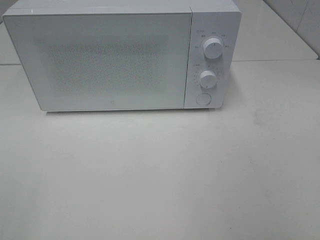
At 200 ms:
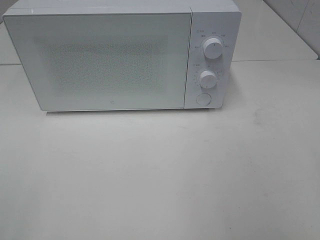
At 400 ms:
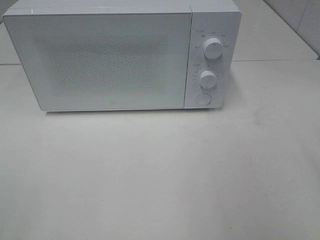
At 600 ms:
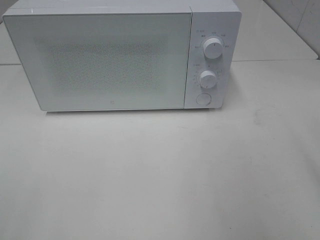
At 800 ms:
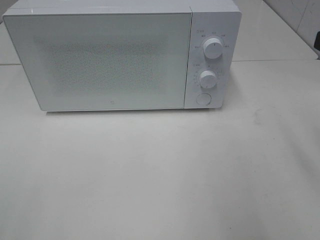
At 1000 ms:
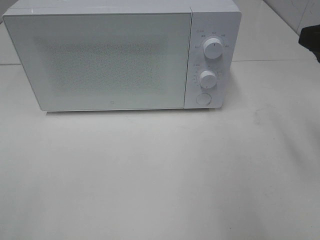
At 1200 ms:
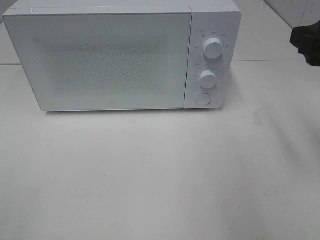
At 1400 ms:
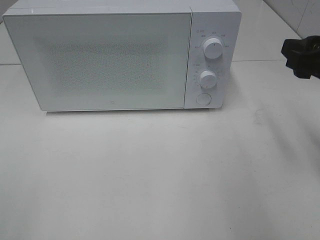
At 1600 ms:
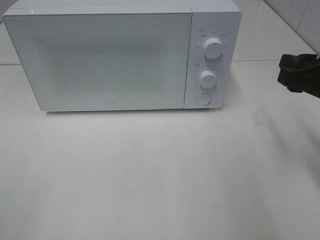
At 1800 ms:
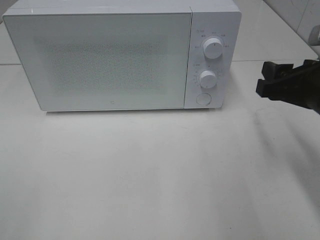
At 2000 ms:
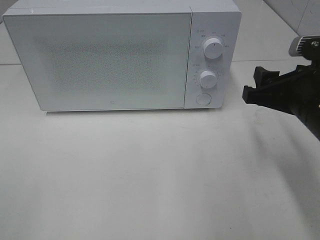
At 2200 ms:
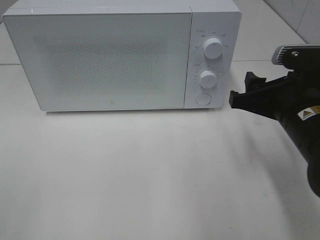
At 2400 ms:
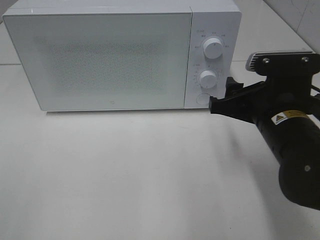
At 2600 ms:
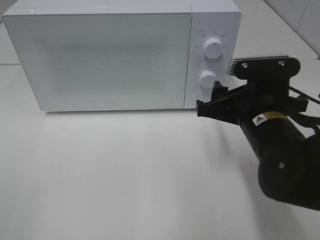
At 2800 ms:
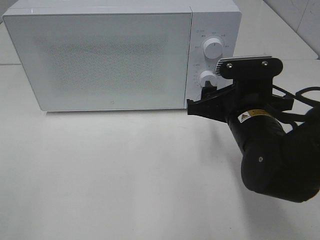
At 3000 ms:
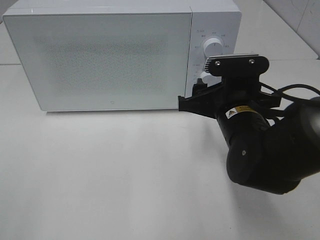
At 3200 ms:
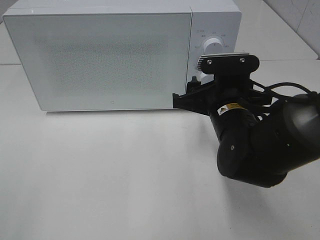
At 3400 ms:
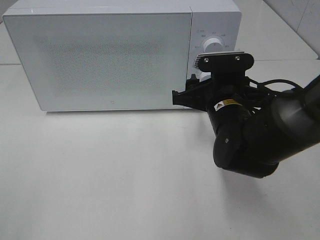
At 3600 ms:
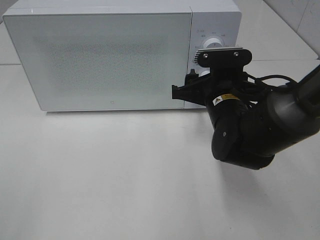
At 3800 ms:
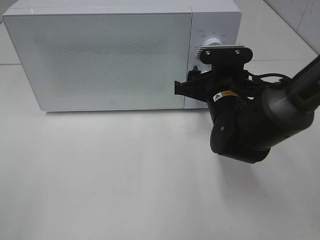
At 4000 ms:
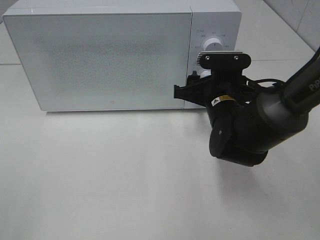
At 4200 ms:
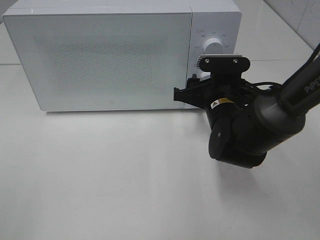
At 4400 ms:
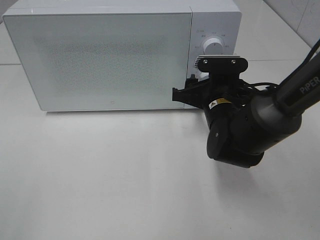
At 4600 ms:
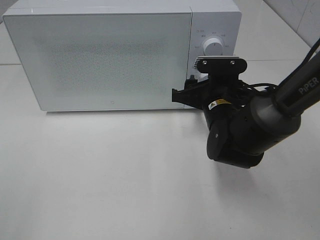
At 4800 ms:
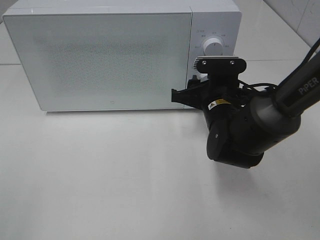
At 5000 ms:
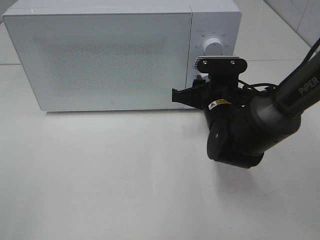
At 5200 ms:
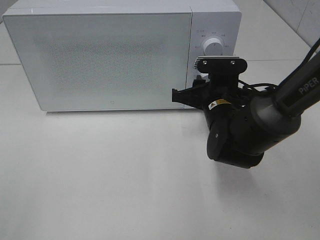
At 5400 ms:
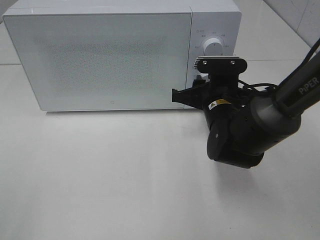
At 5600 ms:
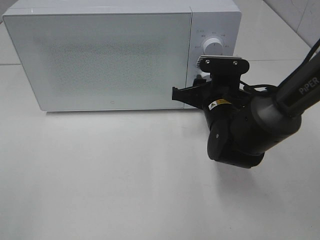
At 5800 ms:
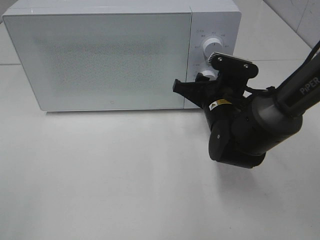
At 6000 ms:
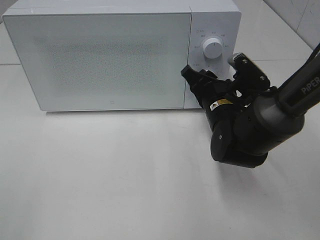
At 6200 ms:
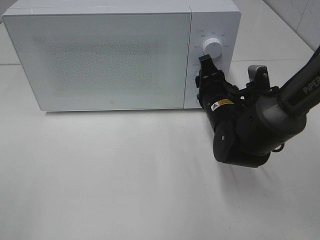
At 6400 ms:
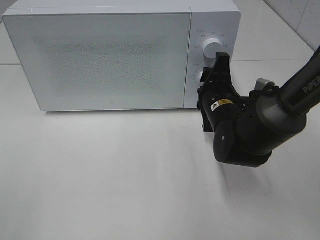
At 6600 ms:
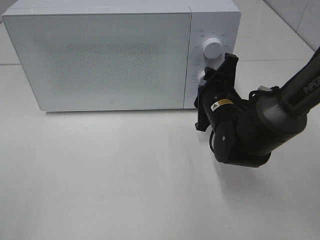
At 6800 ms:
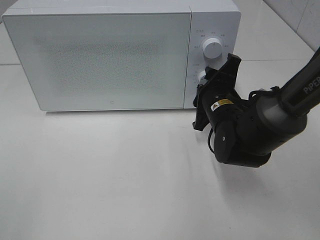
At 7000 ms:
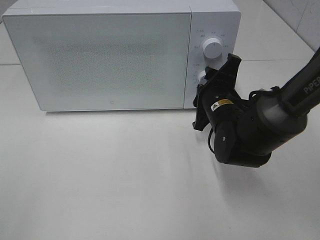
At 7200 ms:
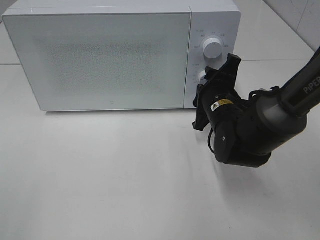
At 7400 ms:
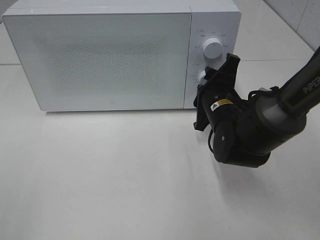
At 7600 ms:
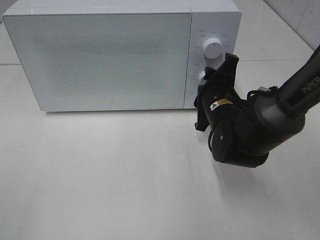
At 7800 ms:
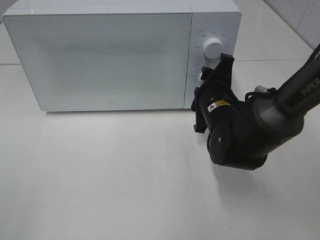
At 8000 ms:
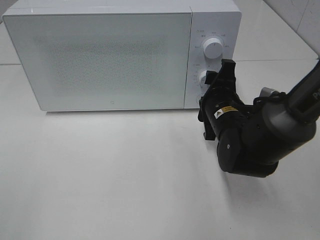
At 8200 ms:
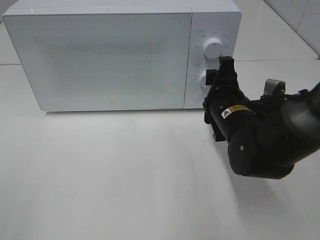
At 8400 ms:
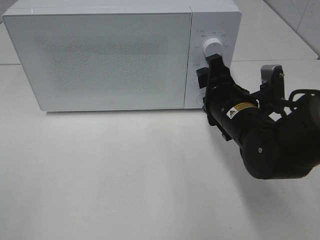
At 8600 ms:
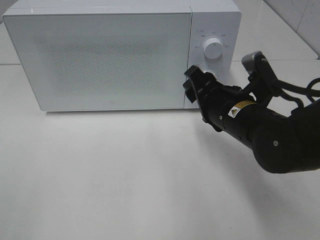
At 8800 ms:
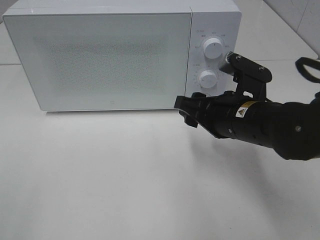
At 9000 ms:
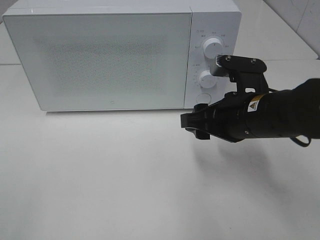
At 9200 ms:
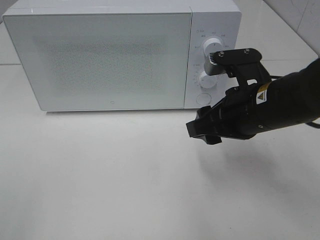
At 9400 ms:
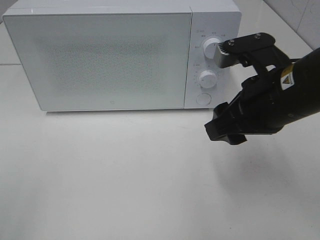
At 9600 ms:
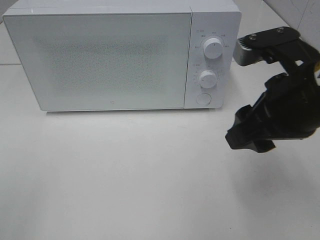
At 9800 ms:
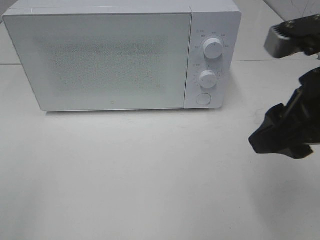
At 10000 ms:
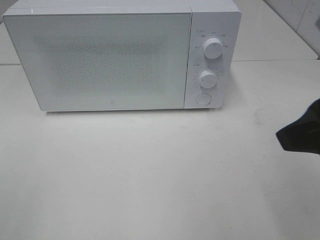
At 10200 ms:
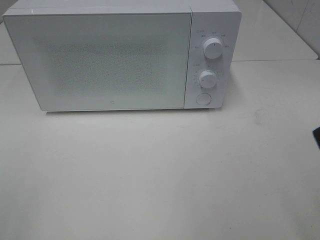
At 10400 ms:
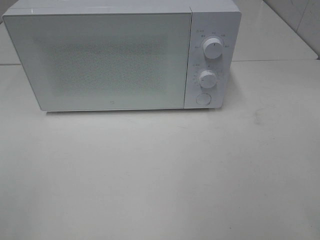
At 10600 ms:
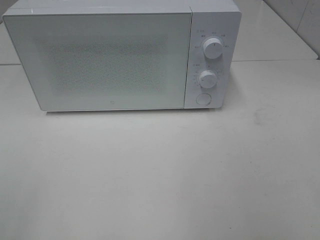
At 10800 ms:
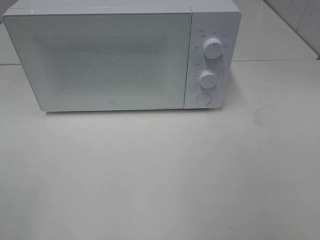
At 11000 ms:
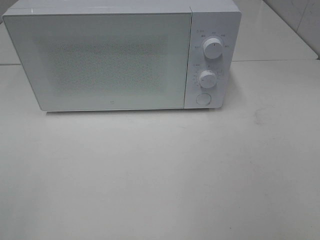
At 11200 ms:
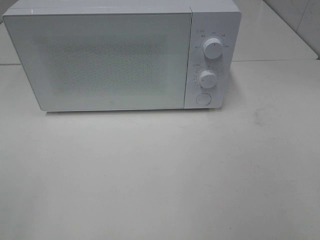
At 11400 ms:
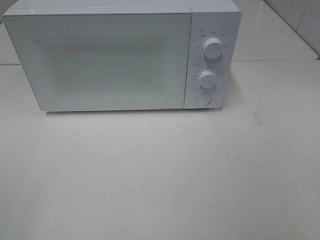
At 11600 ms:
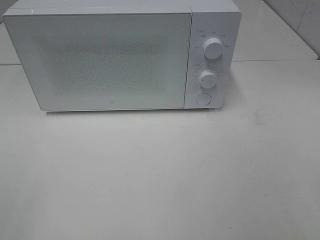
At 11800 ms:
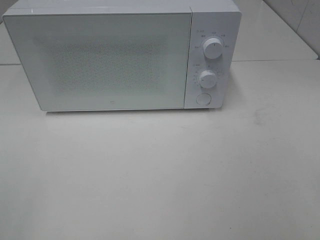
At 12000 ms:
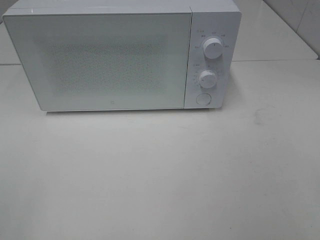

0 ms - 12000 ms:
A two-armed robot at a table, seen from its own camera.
Task of the whole recording: Heat the burger.
Step, 0 ms - 8000 ms: Right hand: twist timer button.
0 ms - 1600 ms: The right gripper shifts approximately 20 cm forward and downward.
1600 ms - 3000 ms: The right gripper shifts roughly 15 cm to the left and downward.
3000 ms - 4400 ms: The right gripper travels forward by about 5 cm.
7600 ms - 9000 ms: The right gripper heads backward and upward, covering approximately 10 cm.
9000 ms - 10400 ms: The right gripper travels backward, upward and to the right by approximately 25 cm.

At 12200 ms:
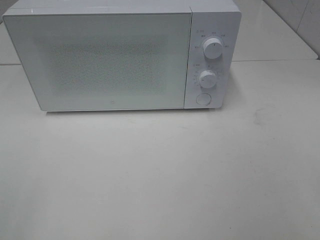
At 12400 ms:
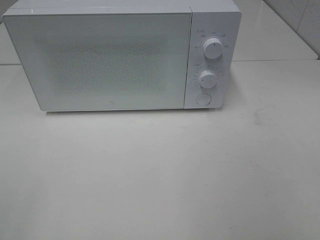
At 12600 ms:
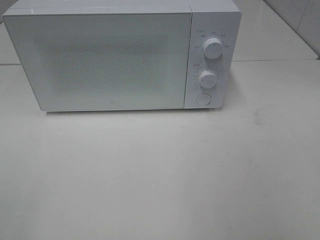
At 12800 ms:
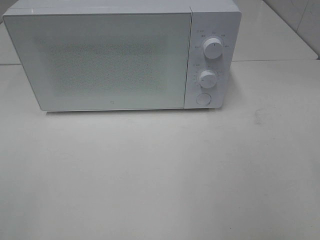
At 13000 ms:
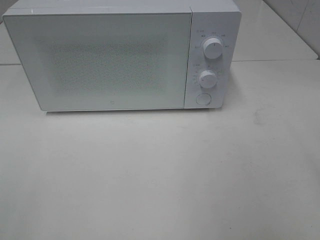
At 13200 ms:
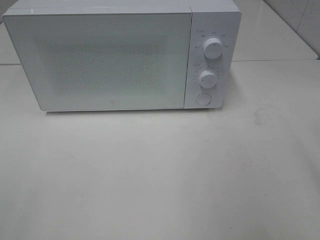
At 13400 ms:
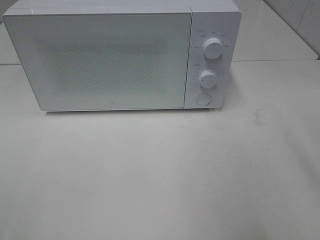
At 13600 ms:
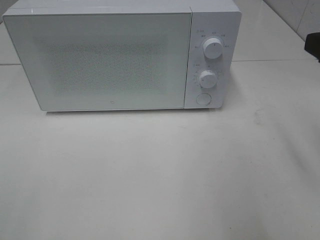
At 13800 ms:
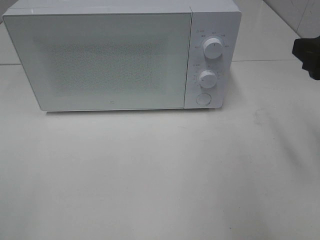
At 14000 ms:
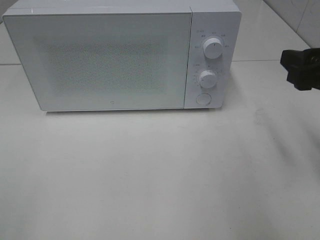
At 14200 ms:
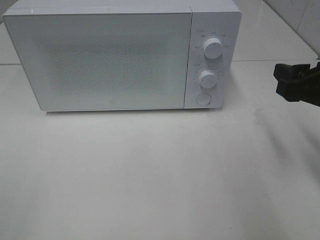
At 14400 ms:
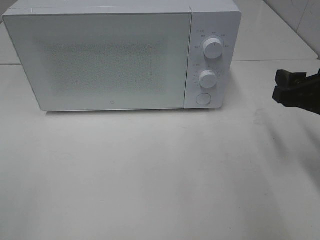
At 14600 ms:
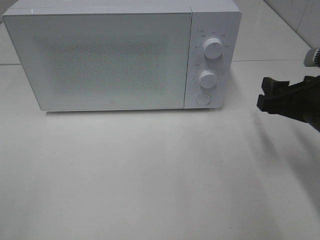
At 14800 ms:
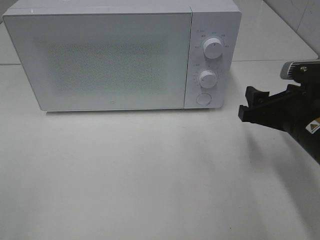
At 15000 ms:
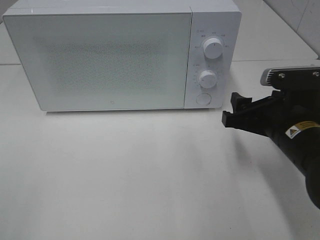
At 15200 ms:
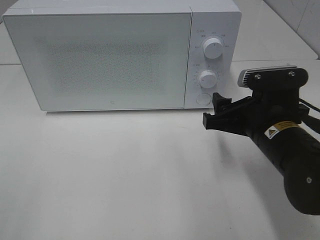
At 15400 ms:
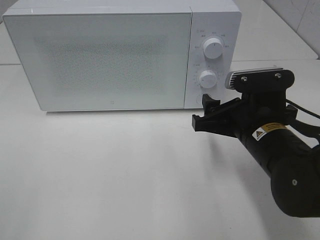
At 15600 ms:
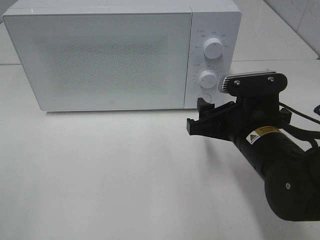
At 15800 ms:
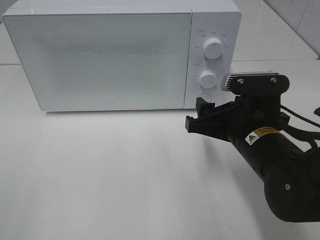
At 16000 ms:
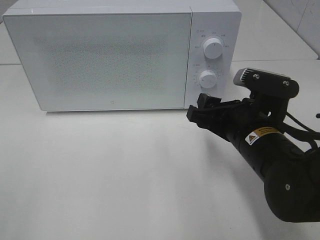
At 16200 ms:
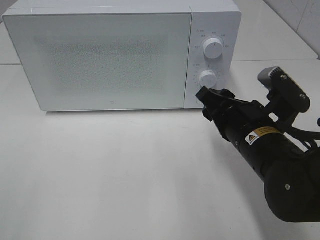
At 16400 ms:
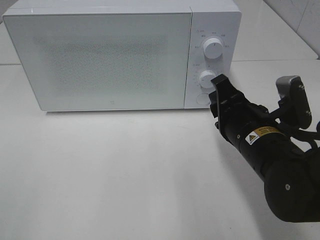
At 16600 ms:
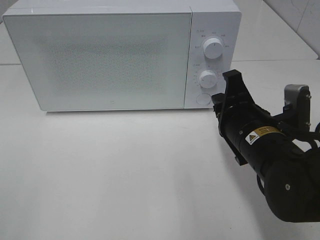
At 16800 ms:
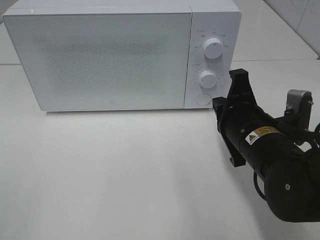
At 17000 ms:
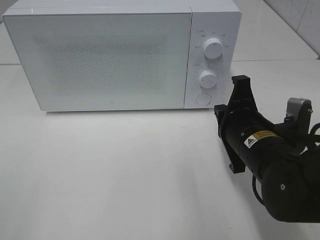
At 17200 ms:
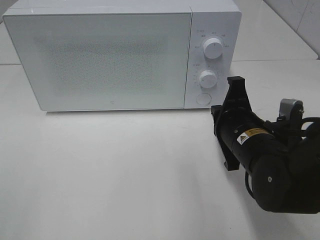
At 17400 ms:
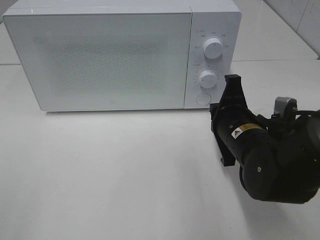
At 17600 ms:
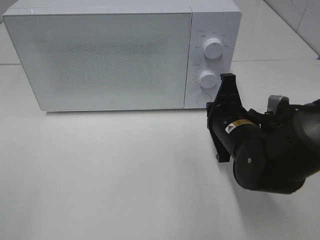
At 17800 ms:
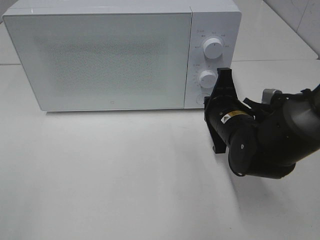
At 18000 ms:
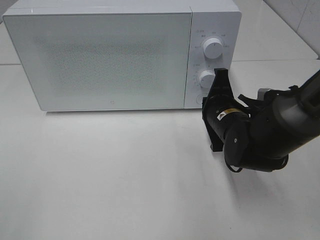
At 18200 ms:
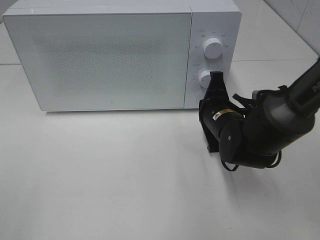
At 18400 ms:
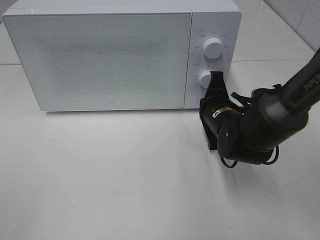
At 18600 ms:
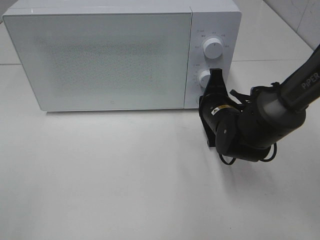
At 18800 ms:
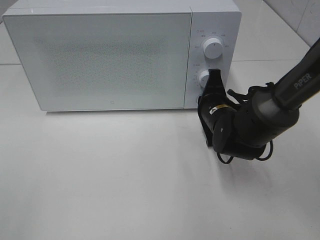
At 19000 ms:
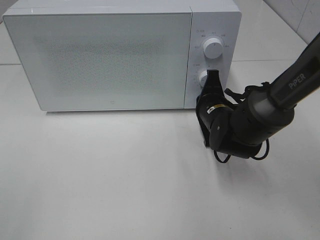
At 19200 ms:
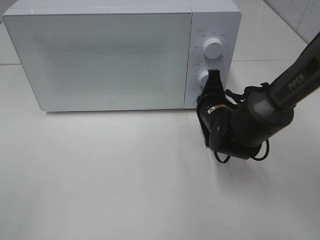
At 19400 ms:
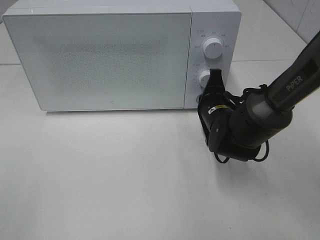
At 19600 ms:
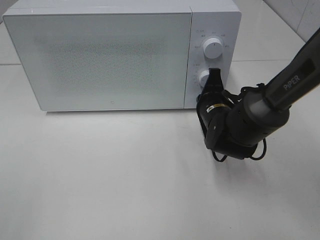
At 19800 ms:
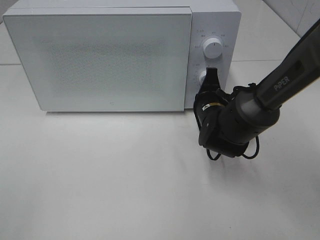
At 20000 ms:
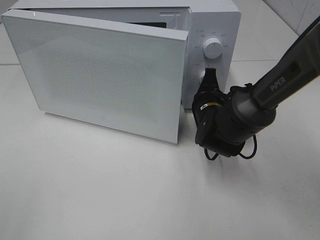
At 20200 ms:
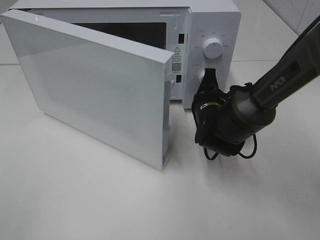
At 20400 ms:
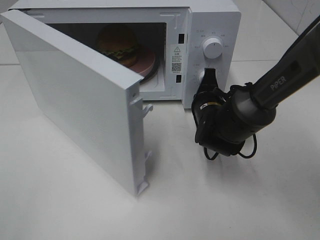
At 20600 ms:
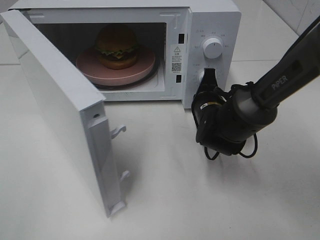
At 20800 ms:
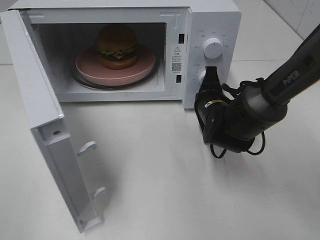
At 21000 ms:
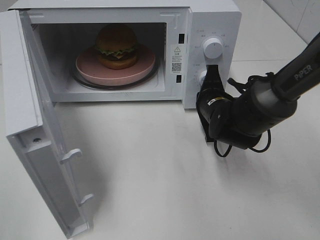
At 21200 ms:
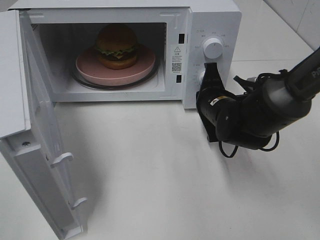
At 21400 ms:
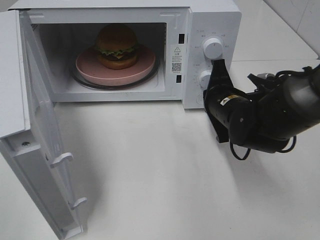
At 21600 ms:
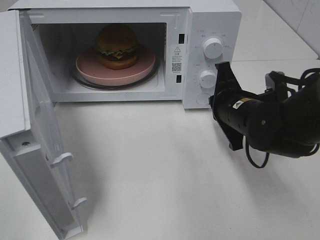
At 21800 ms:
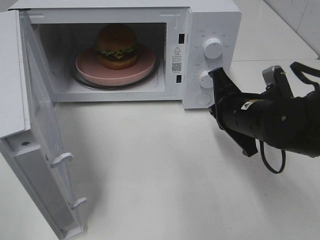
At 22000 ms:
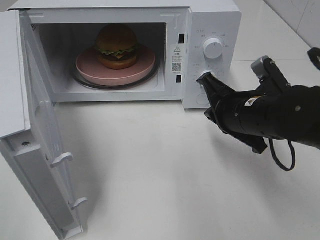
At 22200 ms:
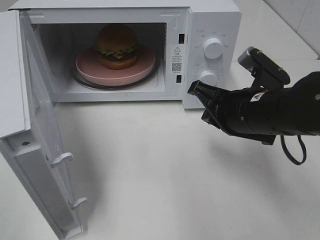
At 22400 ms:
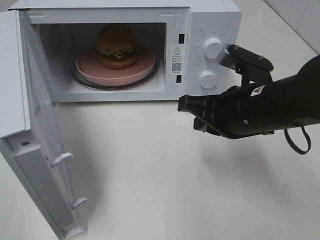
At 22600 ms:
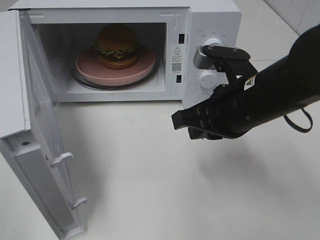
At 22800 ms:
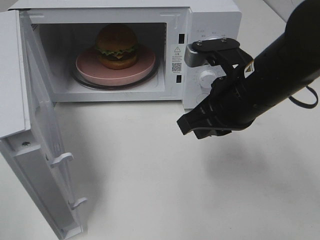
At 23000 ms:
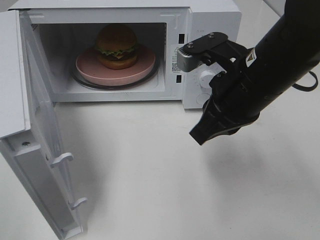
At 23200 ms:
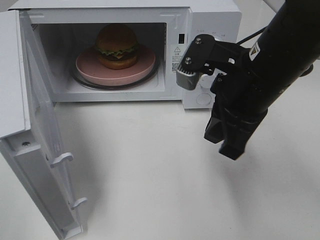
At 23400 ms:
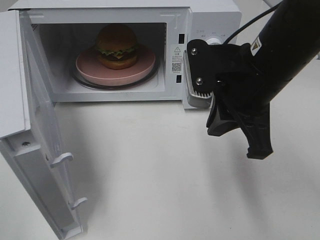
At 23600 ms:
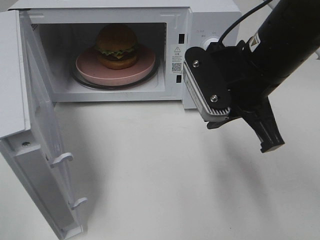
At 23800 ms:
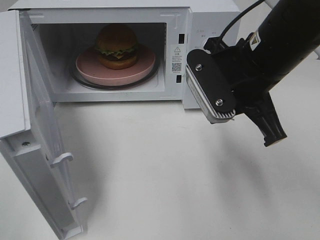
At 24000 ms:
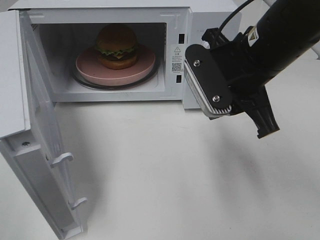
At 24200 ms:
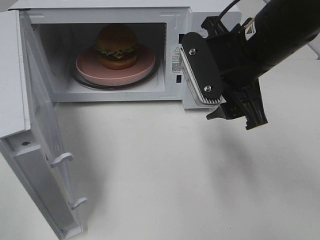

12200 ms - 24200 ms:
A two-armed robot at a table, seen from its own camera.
Task of the whole recording: Heat the burger.
Step, 12200 ms - 21200 ms: Right hand: press the switch.
12200 ms - 13800 ms: The right gripper travels forward by about 20 cm.
13800 ms - 15200 ms: The right gripper goes approximately 15 cm downward and to the left.
15200 ms - 16600 ms: The right gripper closes up.
16600 ms - 18200 ms: The right gripper travels forward and downward by some 10 cm.
18200 ms - 19800 ms: The grippers stay close to where they were, moving slightly.
21200 ms - 22600 ms: The right gripper travels upward and backward by some 15 cm.
22600 ms - 24200 ms: The right gripper is displaced upward by roughly 5 cm, and opens its fingers.
